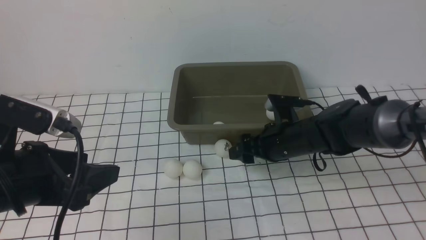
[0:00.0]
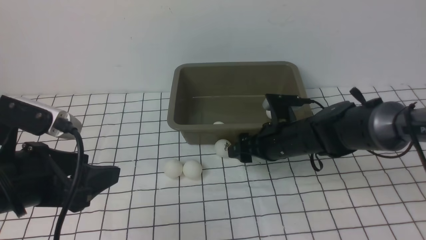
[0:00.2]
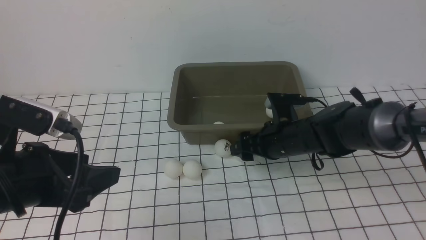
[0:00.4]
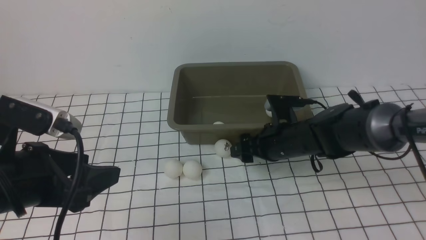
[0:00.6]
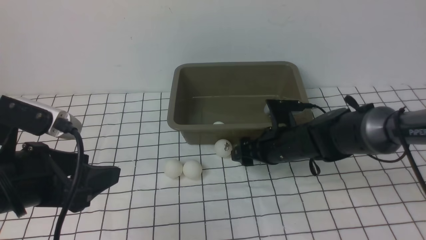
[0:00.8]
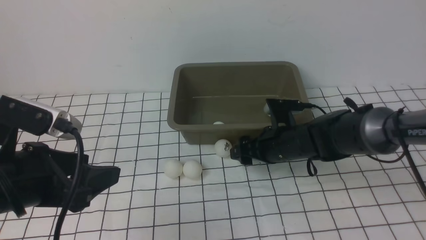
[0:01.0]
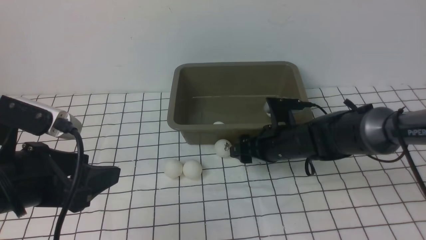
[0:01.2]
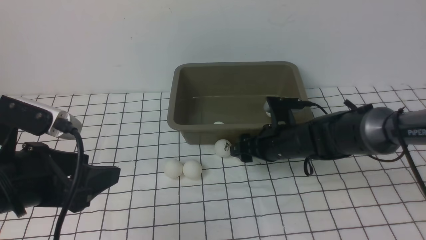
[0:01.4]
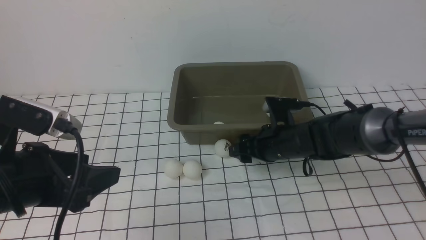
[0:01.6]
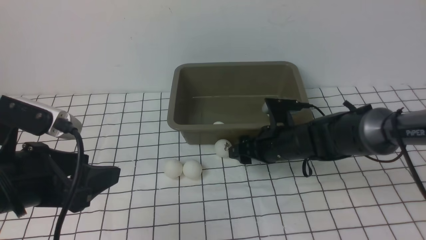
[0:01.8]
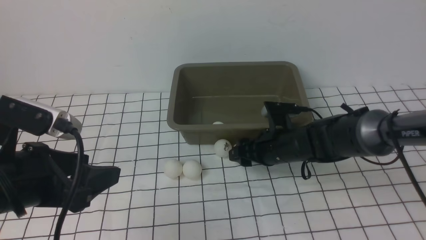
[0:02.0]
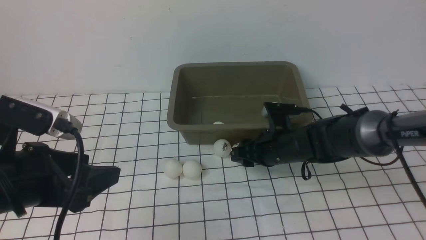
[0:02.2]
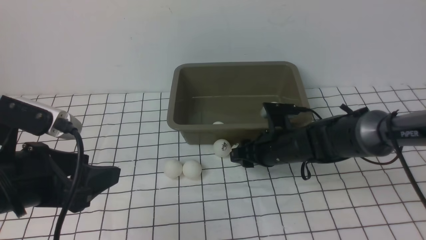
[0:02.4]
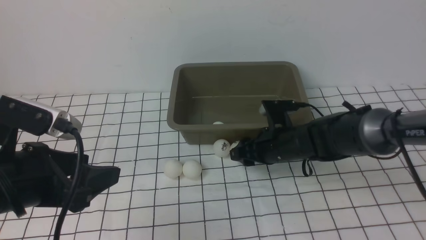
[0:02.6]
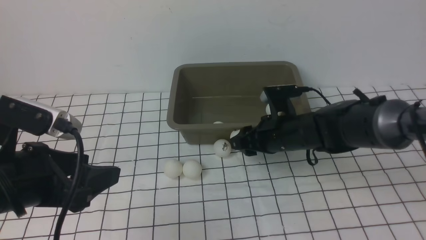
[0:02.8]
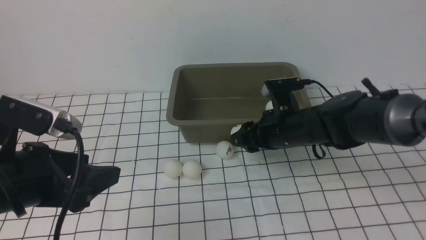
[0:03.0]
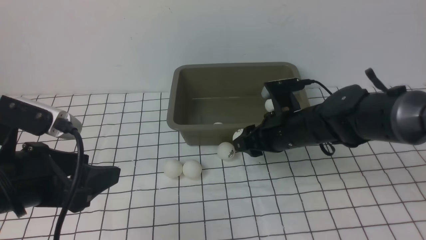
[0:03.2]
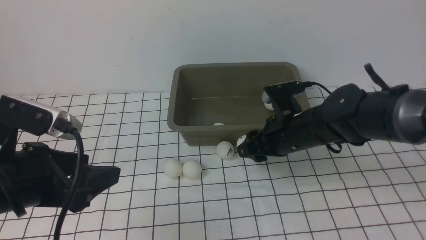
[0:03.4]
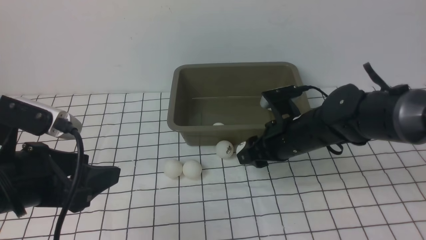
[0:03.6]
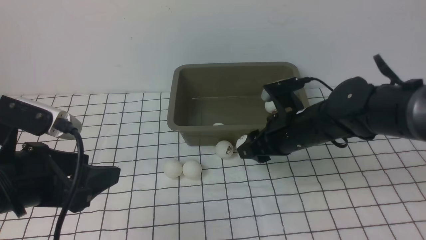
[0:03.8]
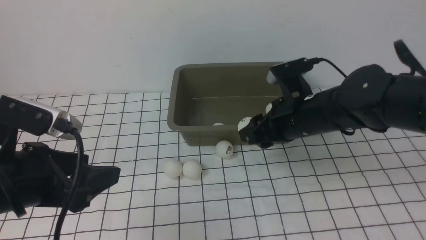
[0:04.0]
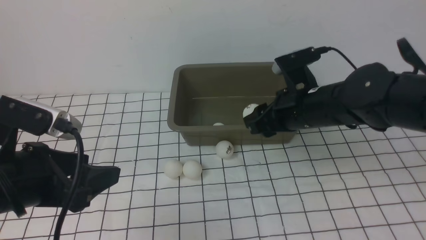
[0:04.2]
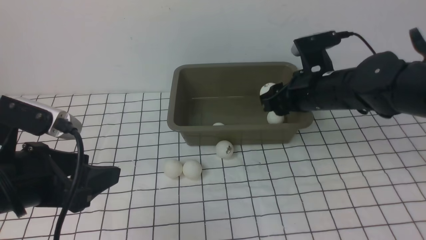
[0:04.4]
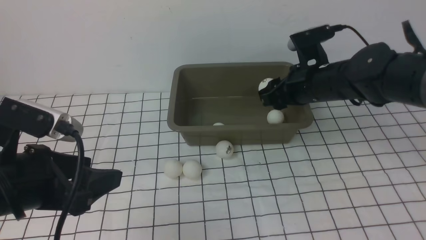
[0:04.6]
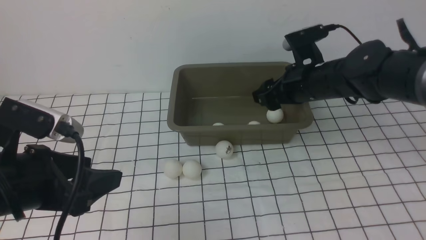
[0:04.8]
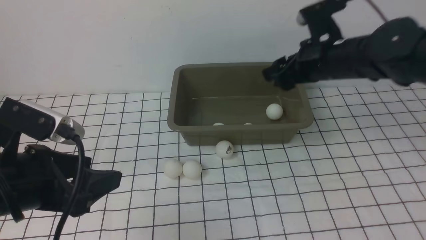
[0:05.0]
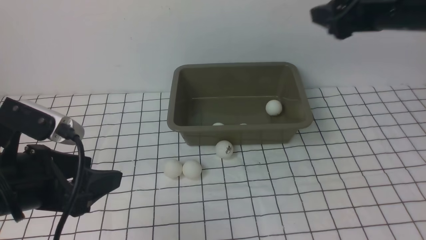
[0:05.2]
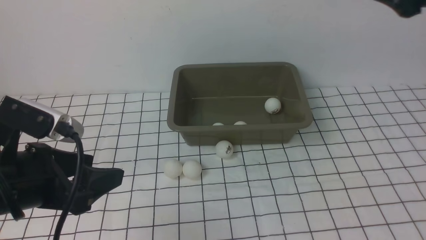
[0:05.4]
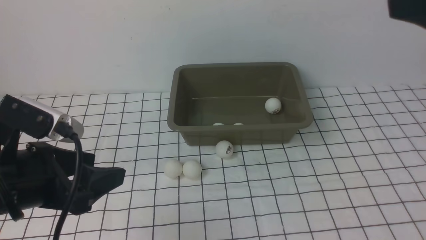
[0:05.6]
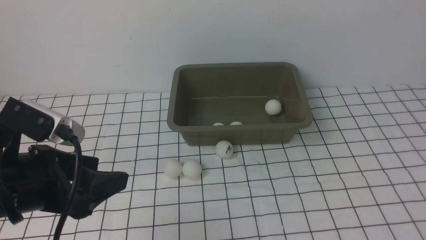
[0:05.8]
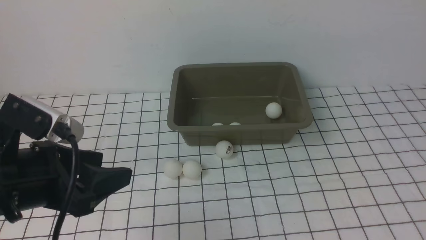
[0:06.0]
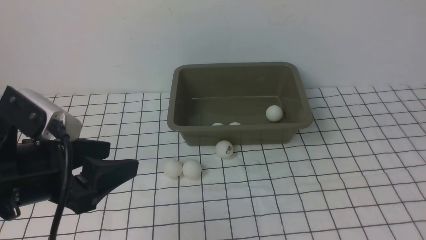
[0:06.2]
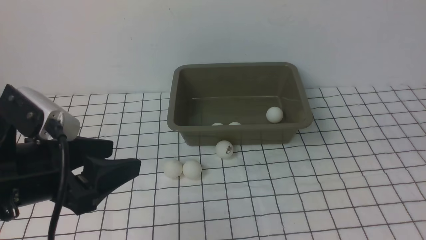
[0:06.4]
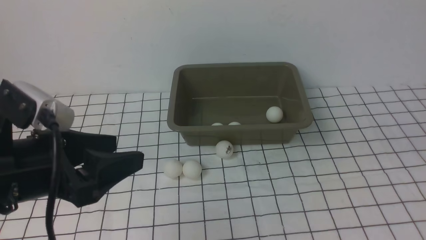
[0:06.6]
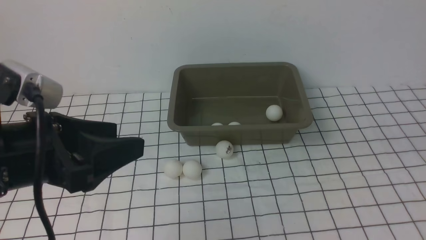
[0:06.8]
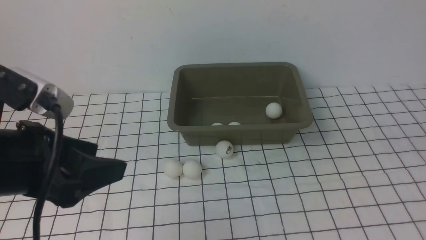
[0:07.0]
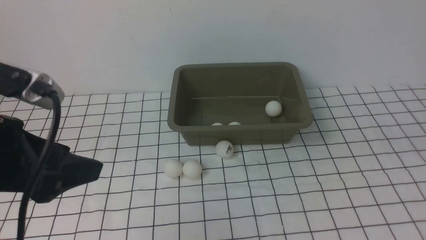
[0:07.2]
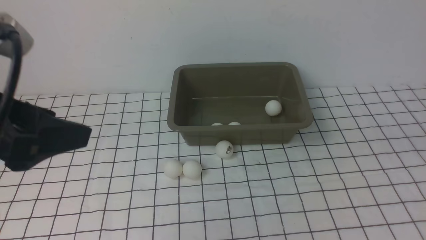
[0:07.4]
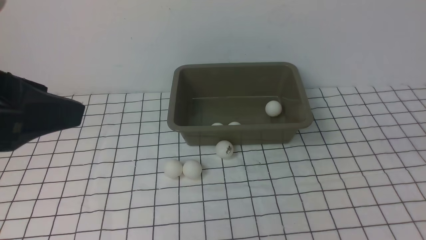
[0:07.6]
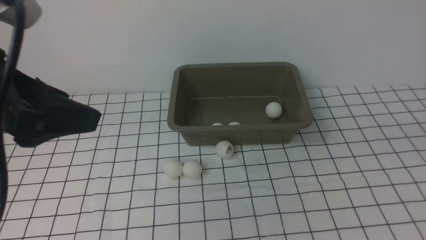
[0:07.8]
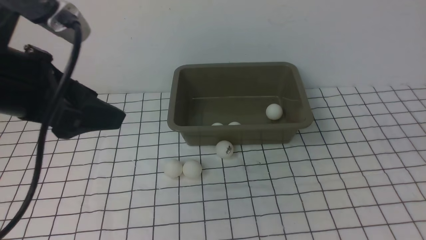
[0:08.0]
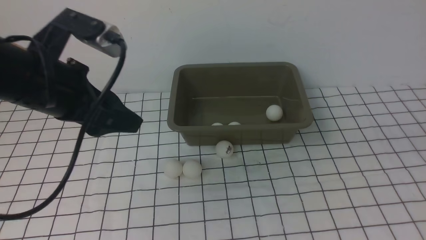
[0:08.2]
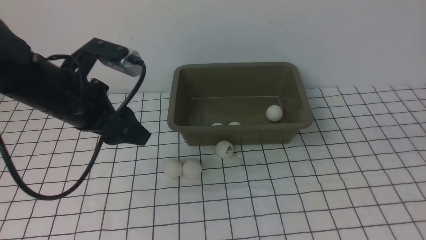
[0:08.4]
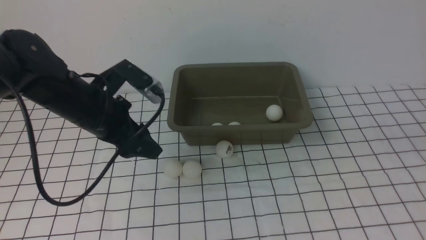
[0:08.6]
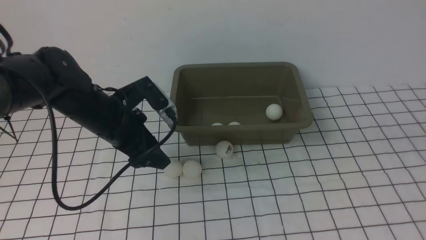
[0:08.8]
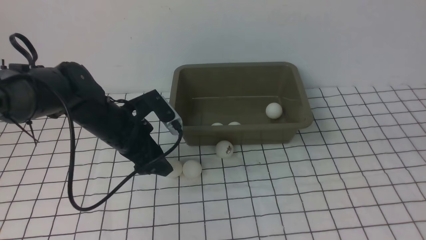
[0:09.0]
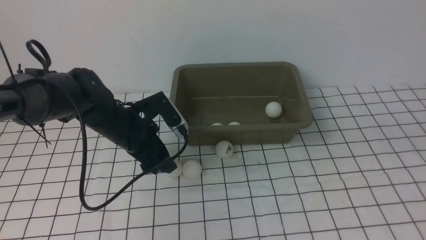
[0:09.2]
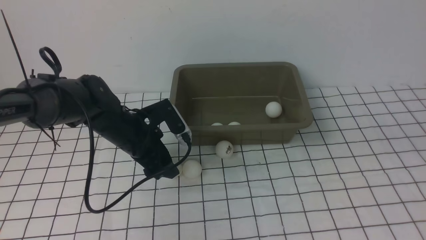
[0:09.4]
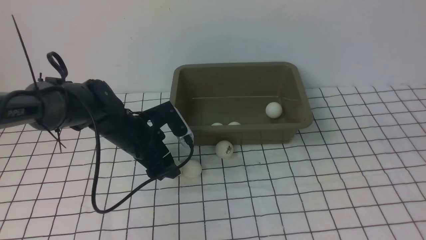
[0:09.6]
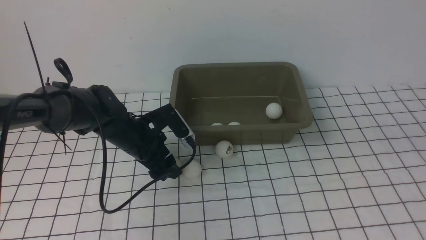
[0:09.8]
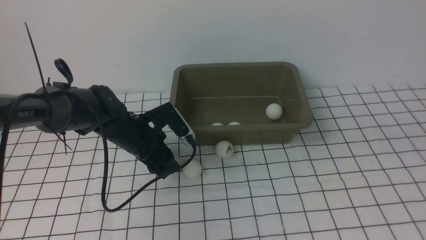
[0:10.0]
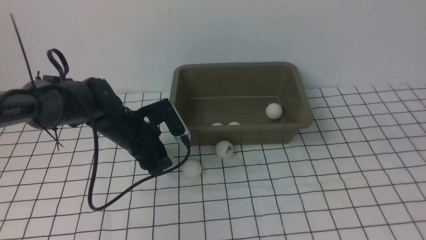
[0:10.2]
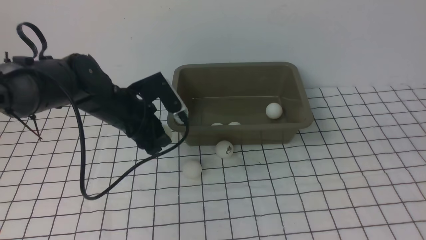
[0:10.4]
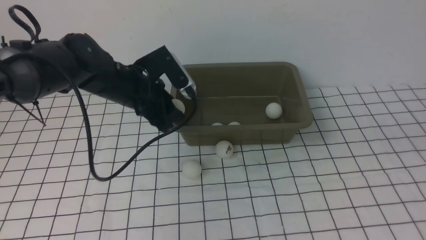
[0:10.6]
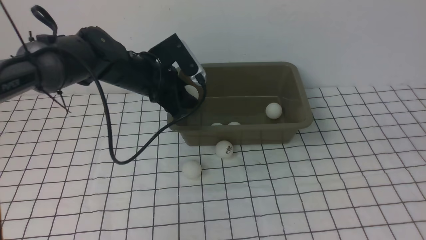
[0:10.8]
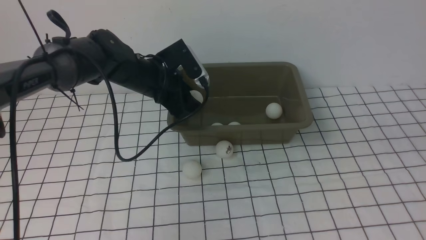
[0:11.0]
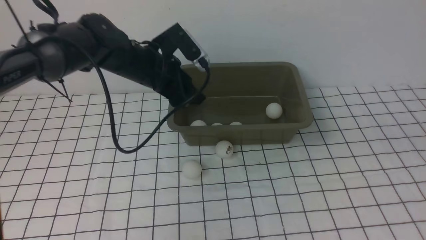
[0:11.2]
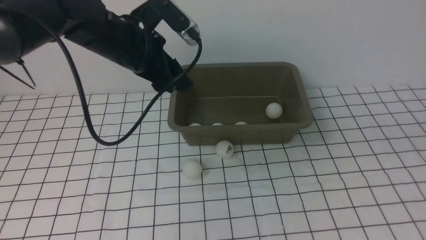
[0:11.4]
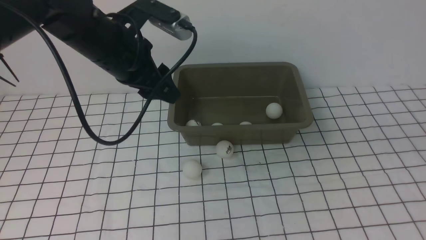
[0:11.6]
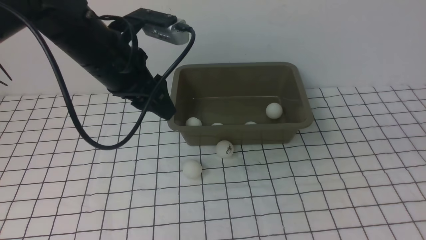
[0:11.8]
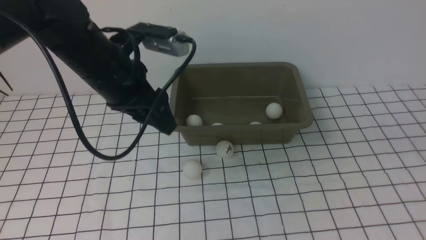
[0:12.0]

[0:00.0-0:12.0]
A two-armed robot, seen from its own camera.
Step, 0:00.0 to 0:02.8: use the right arm to clamp the table tennis ball closest to it.
Step, 0:03.0 to 0:04.8: use the right arm to put the table tennis ball into the box.
Step, 0:05.2 to 0:10.2: use the left arm to clamp the table tennis ball closest to it.
Step, 0:10.4 to 0:11.2: use the left arm to put the table tennis ball into the box.
0:00.0 to 0:01.6: The grippers make only small movements.
0:01.6 to 0:03.0: The right gripper closes.
0:03.0 to 0:04.4: The right gripper travels upward by about 5 cm.
0:04.4 to 0:06.0: The right gripper goes about 35 cm backward, upward and to the right, and opens its fingers.
0:06.0 to 0:07.6: The left gripper is displaced upward by roughly 10 cm.
0:07.6 to 0:09.0: The left gripper heads downward and forward, covering some 30 cm.
0:09.0 to 0:10.4: The left gripper closes up.
0:10.4 to 0:12.0: The left gripper travels upward by approximately 10 cm, and opens.

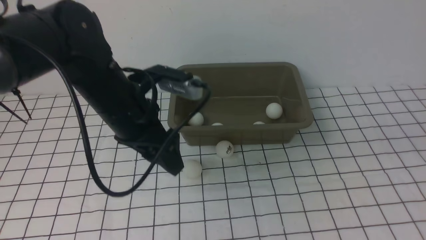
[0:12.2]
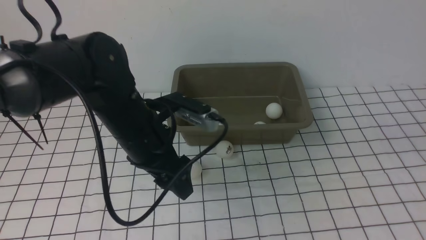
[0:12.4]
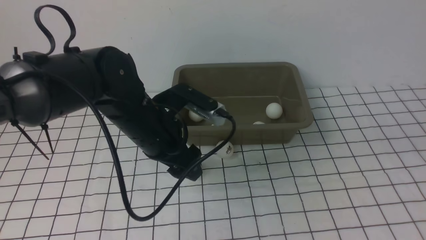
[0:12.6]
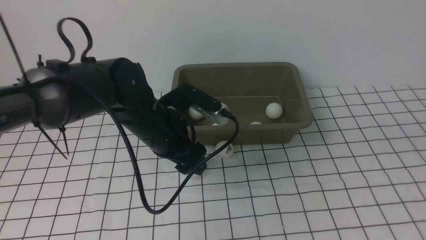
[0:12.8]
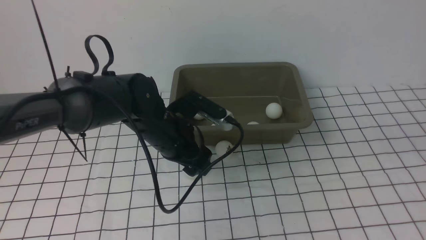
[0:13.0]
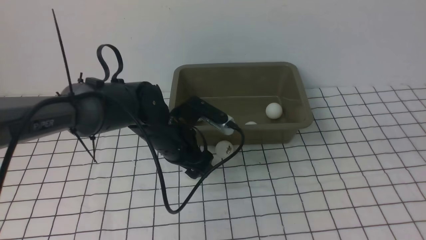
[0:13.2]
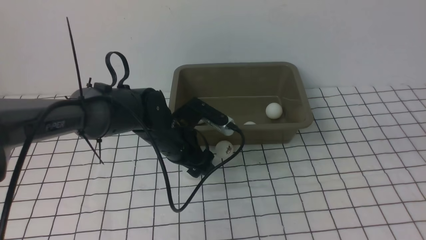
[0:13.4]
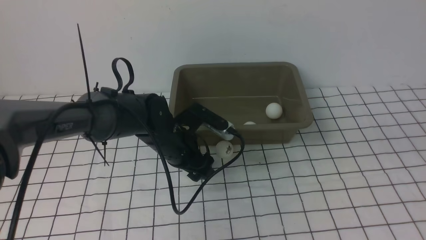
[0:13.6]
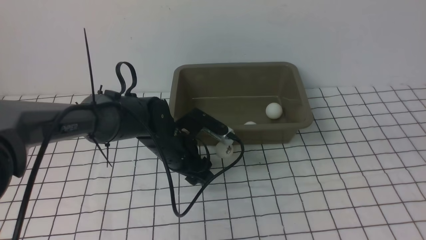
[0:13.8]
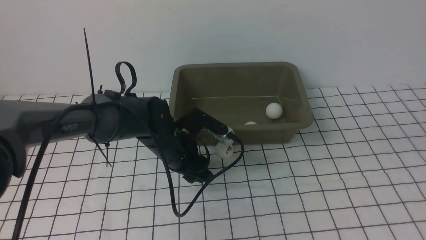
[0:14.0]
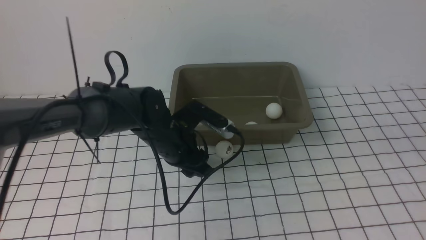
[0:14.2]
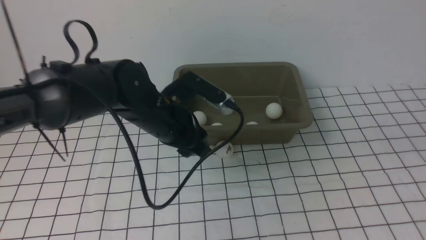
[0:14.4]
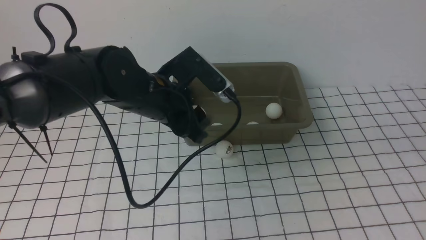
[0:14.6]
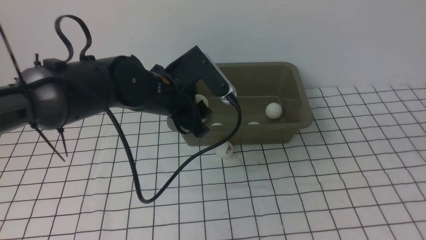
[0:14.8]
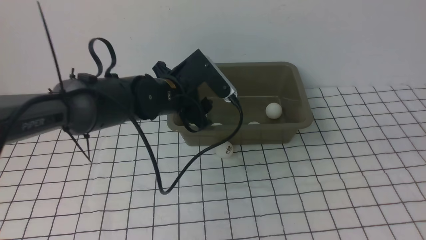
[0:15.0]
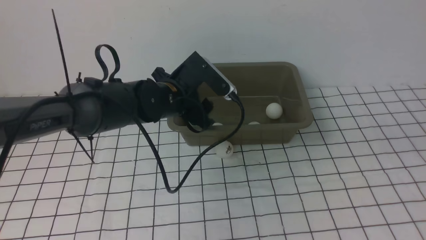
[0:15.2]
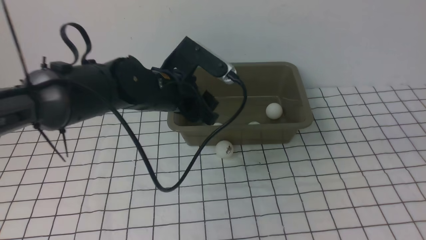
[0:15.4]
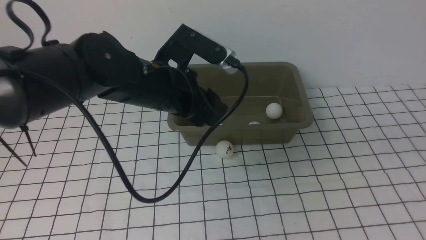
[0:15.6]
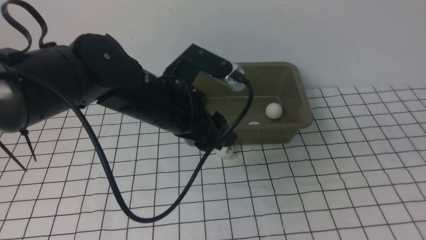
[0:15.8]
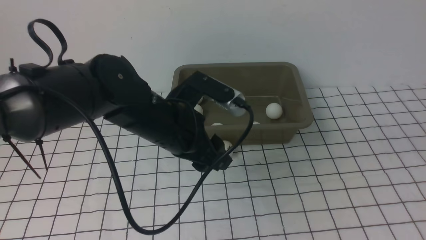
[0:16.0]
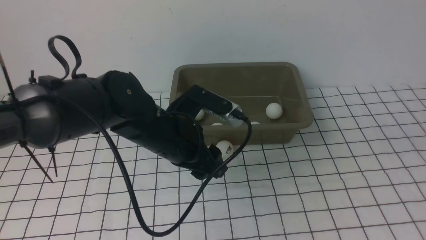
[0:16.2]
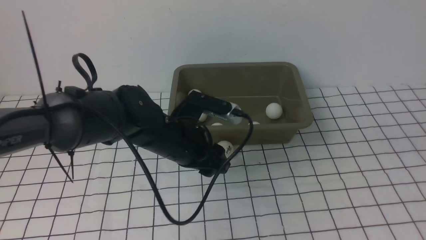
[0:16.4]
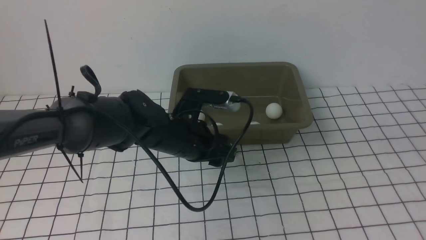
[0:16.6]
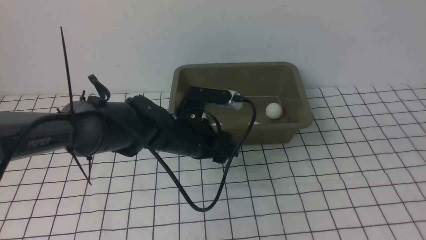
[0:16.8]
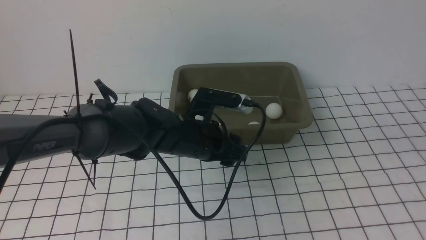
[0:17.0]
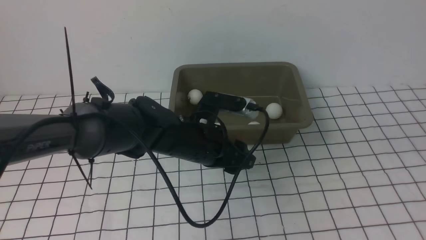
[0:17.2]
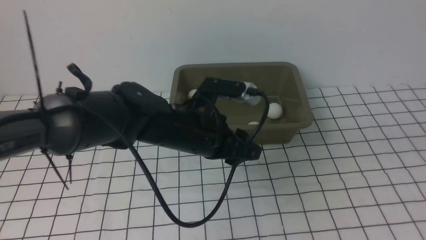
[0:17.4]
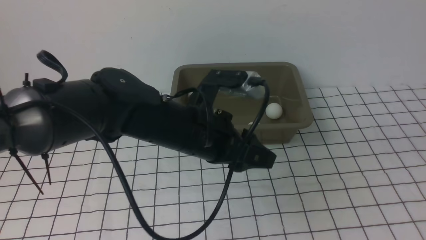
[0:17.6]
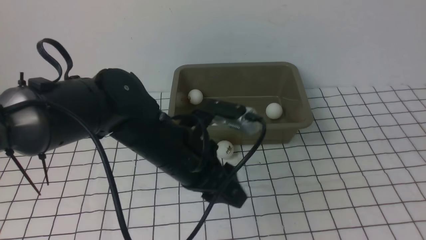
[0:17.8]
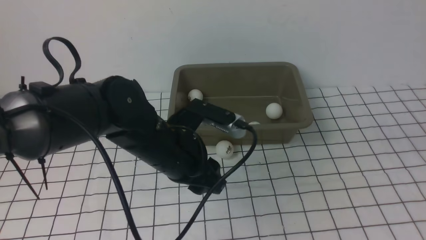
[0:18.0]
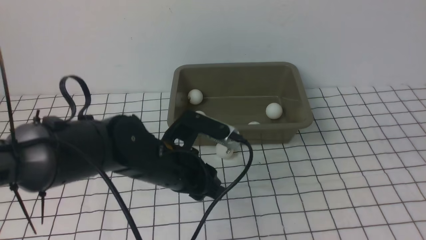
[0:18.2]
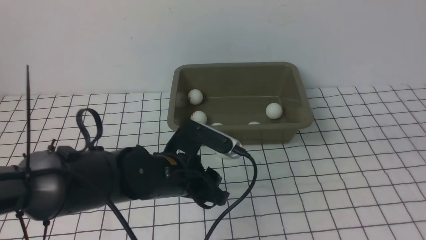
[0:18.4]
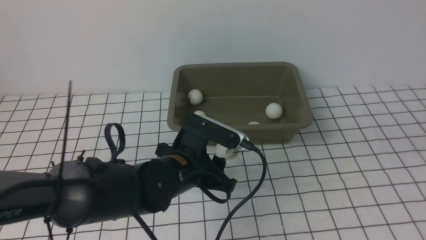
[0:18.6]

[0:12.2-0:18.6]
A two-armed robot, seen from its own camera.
Step, 0:12.2 to 0:14.2: use the left arm to clamp the table tennis ball closest to it.
Step, 0:14.4 to 0:15.4: use the left arm to put the table tennis ball into the box.
0:12.2 to 0:13.8: The left gripper goes approximately 10 cm downward, and closes.
0:13.8 to 0:15.4: The left gripper shifts about 10 cm upward, and closes and opens again.
0:15.4 to 0:17.0: The left gripper travels downward by roughly 5 cm.
0:17.0 to 0:18.6: The left gripper heads backward, covering roughly 5 cm, reaches approximately 5 cm upward, then returns, and closes and opens again.
